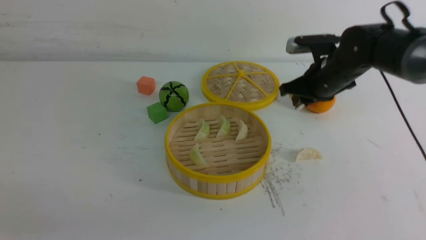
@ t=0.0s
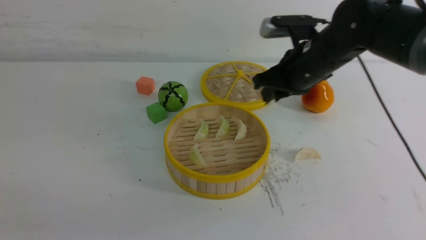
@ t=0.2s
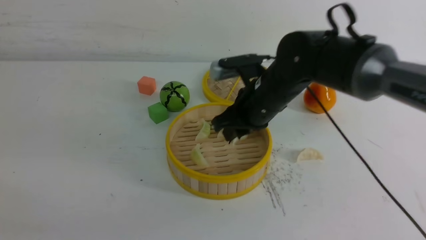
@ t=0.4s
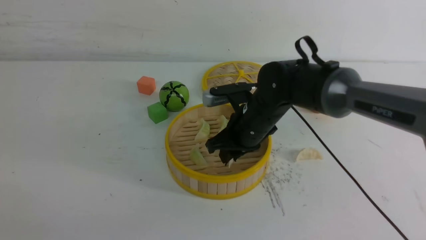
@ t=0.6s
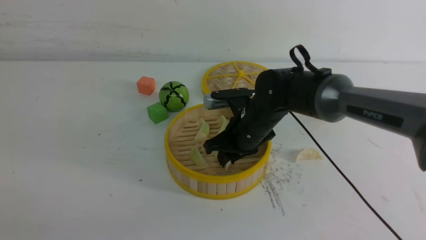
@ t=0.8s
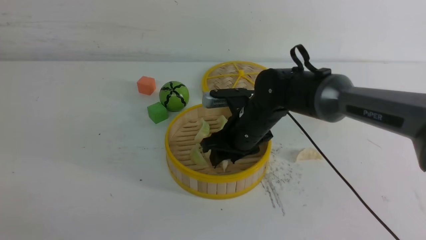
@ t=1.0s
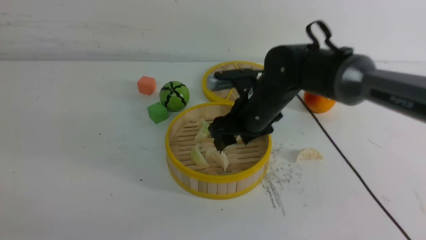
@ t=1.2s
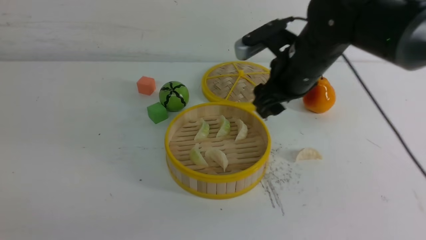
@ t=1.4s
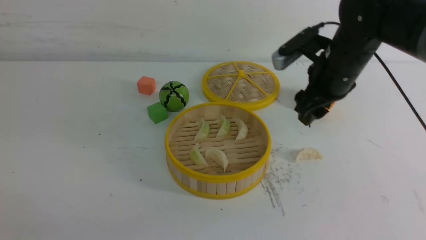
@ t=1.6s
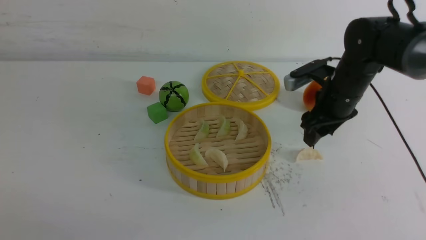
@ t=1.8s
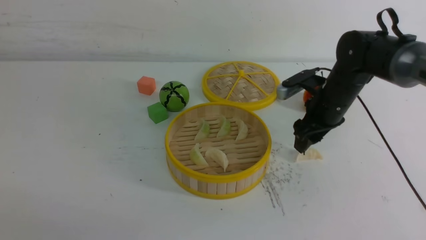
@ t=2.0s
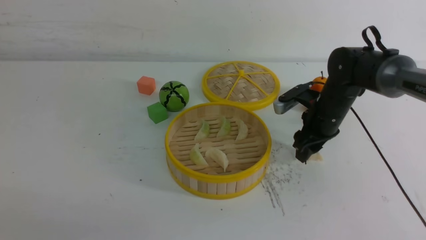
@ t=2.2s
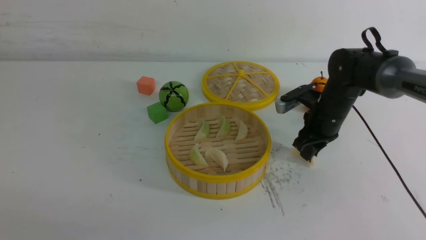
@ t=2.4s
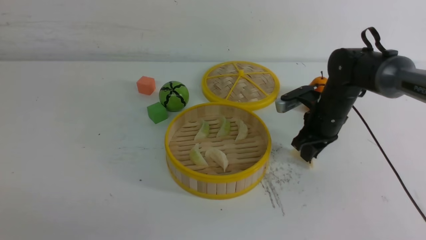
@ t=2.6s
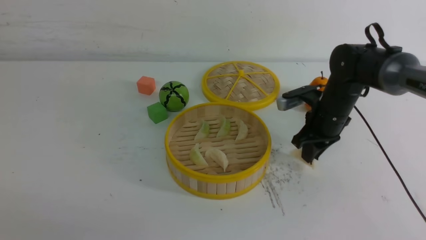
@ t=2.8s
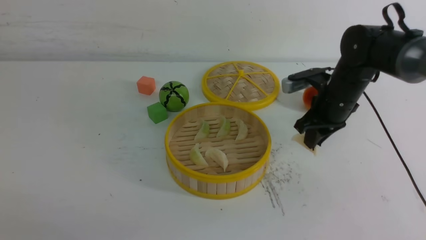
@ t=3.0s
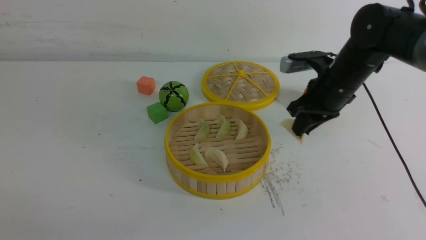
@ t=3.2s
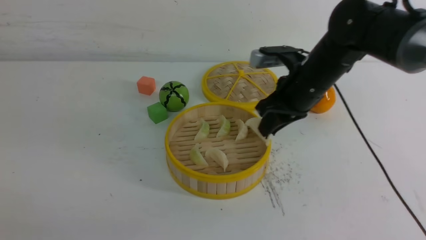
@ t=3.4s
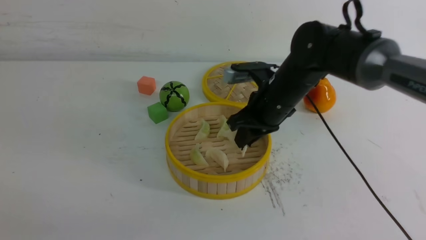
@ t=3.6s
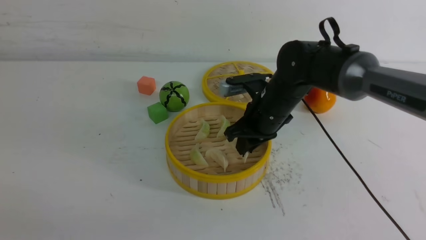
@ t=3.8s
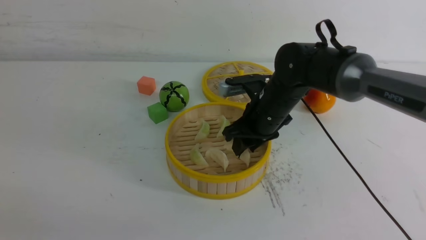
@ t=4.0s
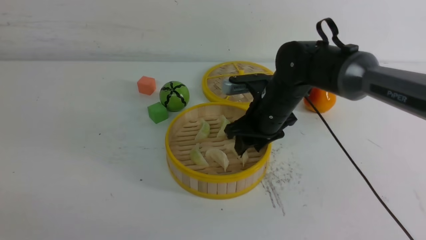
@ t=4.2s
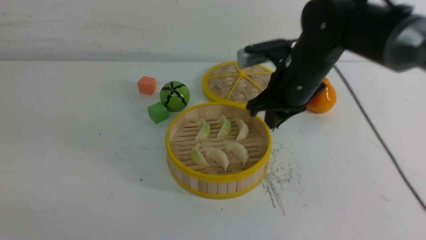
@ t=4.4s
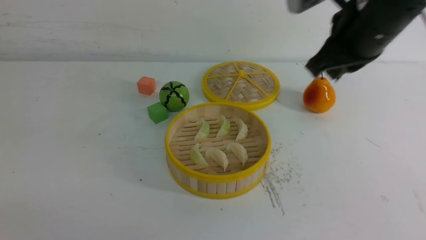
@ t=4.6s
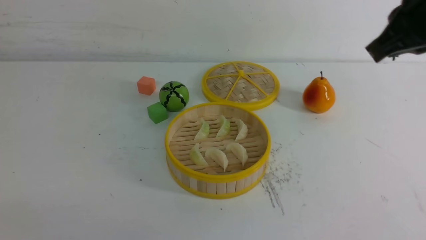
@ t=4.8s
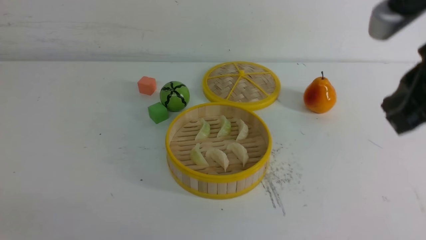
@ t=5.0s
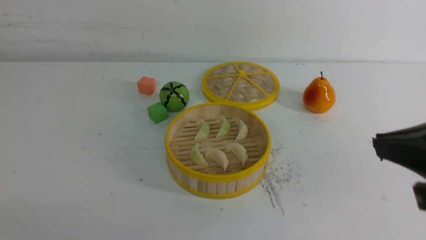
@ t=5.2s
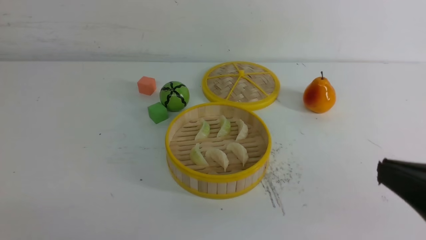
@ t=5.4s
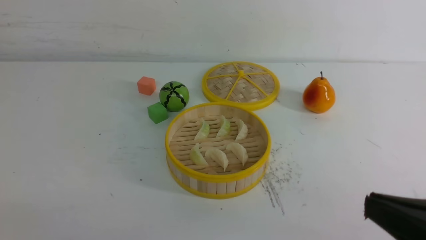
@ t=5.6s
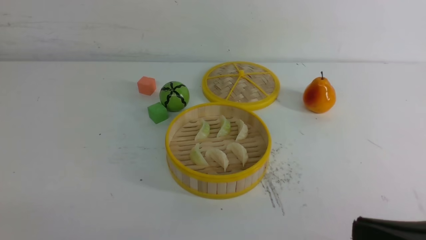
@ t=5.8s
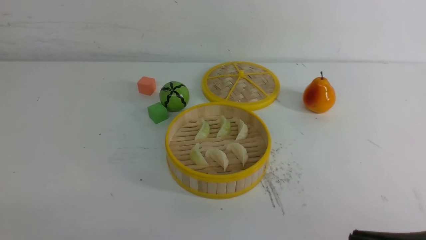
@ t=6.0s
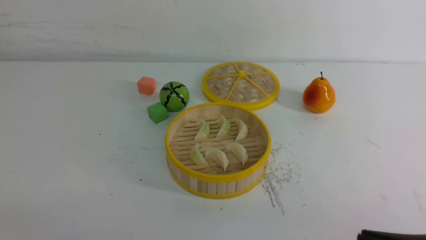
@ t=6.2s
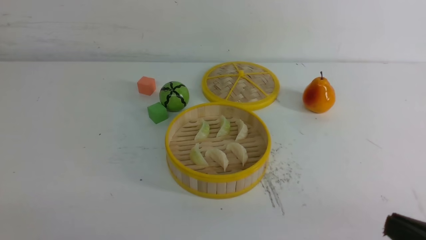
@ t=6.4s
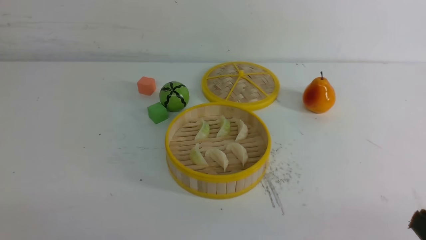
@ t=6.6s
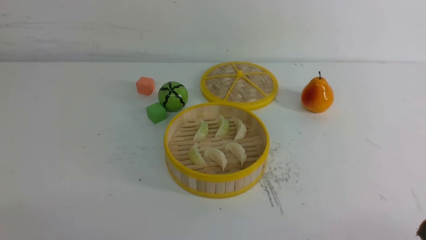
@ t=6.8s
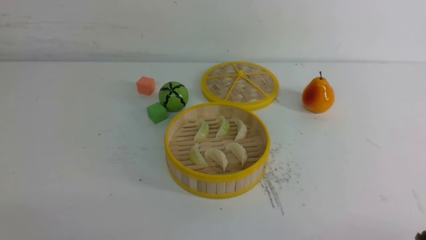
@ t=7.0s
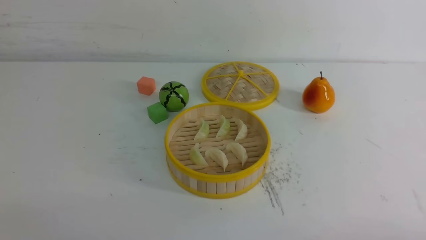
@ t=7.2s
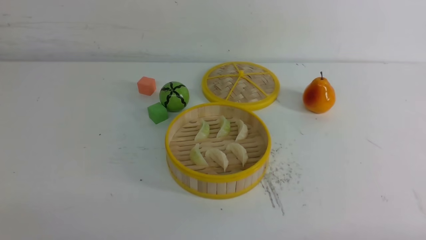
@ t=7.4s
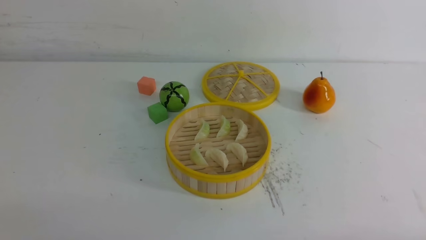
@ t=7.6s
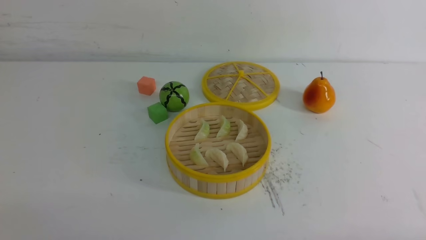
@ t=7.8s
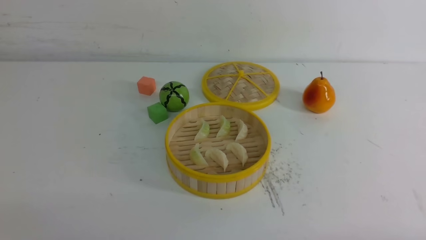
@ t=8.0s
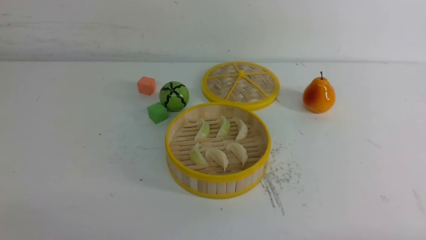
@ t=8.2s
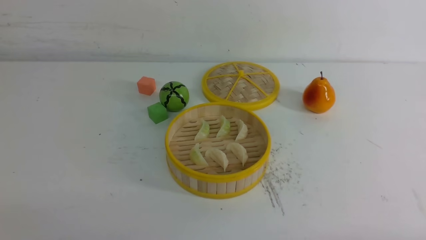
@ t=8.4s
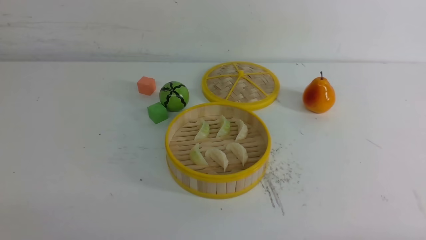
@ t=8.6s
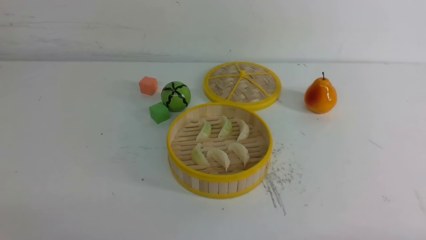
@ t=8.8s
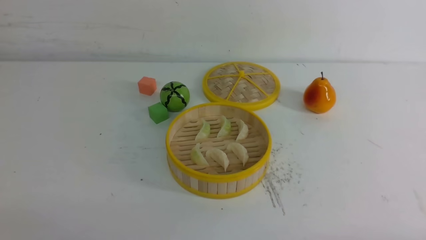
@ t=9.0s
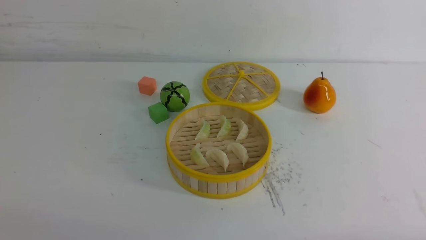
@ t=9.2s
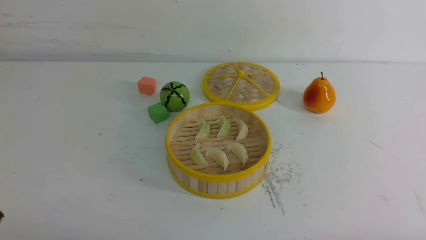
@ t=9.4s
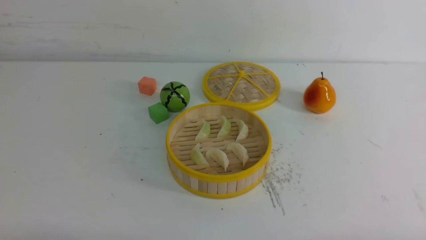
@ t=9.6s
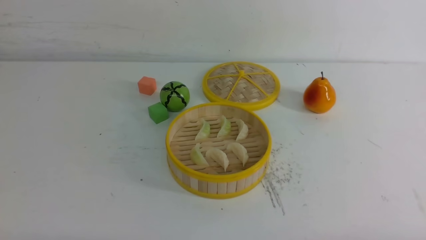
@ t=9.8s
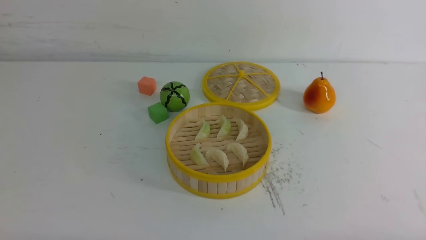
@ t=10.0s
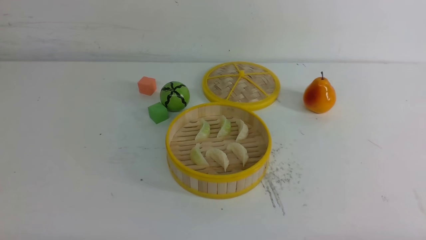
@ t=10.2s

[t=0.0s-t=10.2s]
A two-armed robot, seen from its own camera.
Task of the whole recording: put the dumplings into the steamer on the white table.
Step, t=0.0s to t=1.0s: use the right arm to put the dumpling into the steamer.
Step, t=1.2s to t=2.8s: use the right arm to grab a dumpling.
Step, t=3.0s to t=4.2s: use the right arm to put the dumpling into the steamer.
t=0.0s to t=1.4s: The right gripper opens.
t=1.4s to t=3.0s: The right gripper is displaced to the right and downward by approximately 10 cm, and closes its fingers.
t=3.0s to t=4.4s: The right gripper heads upward, to the left and backward, covering about 15 cm.
t=4.4s to t=5.8s: The right gripper goes roughly 30 cm backward.
t=5.8s to t=7.2s: The right gripper goes about 15 cm downward and to the right.

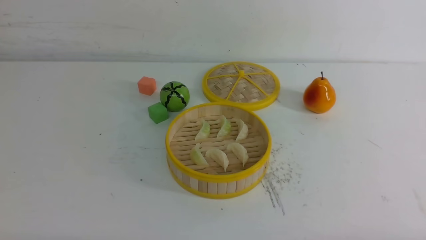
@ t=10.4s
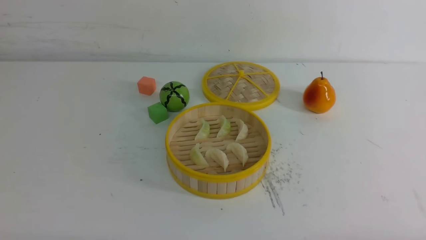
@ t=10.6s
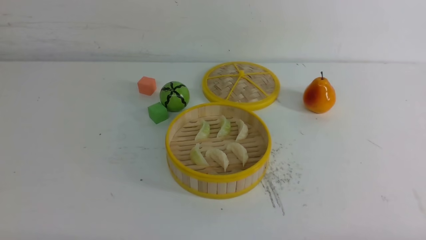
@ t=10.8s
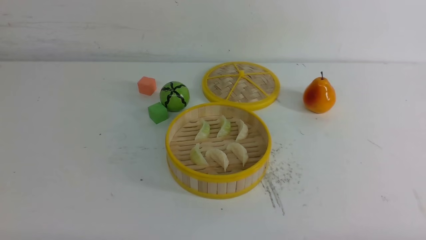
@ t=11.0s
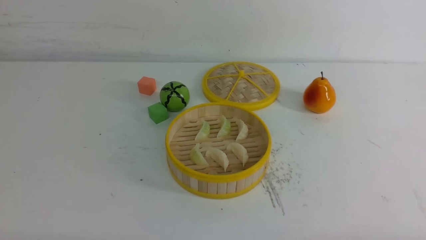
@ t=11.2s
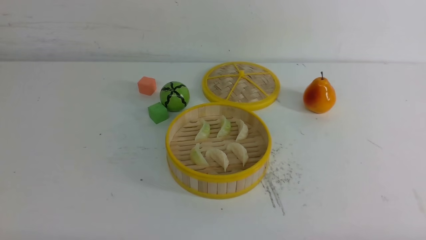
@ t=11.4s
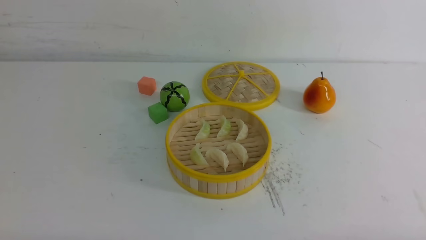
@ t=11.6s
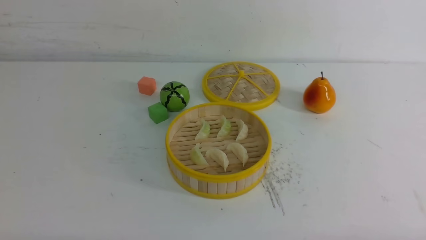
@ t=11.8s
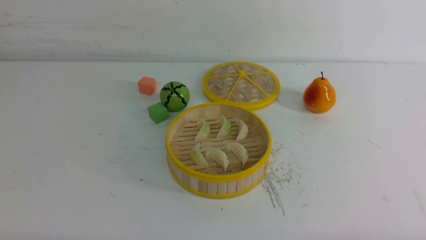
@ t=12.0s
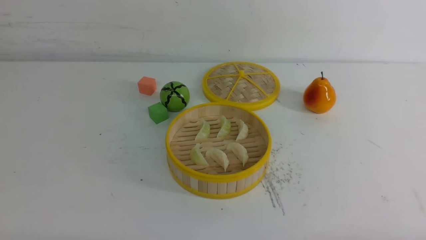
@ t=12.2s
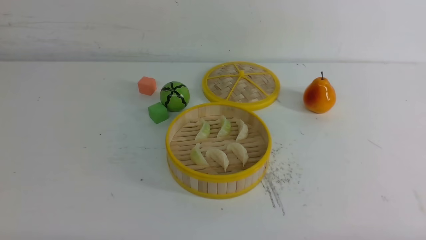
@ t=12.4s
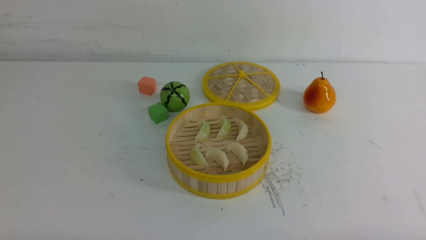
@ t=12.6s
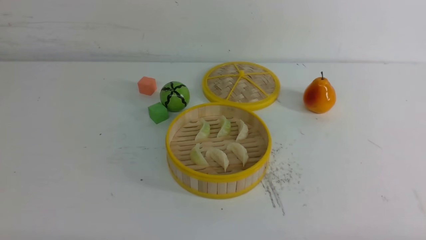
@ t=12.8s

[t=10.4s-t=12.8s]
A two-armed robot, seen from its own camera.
Task of the whole recording: put the dumplings into the steamer on the white table.
t=10.4s to t=12.8s: Both grippers stay about where they are.

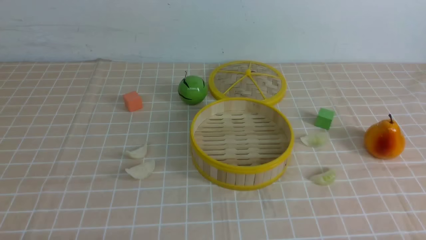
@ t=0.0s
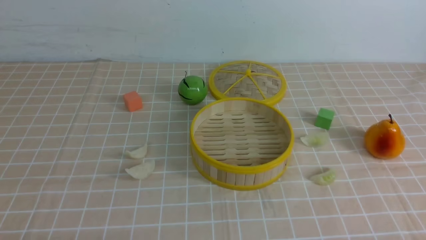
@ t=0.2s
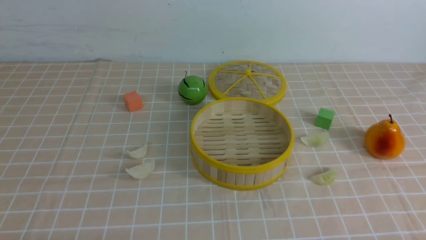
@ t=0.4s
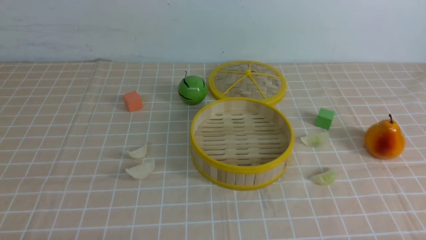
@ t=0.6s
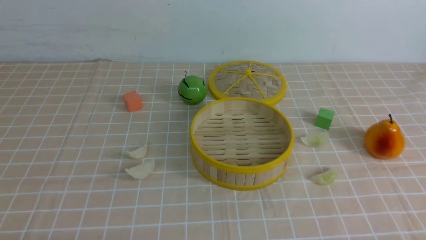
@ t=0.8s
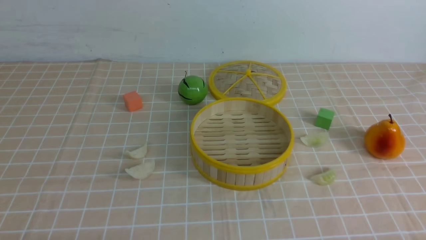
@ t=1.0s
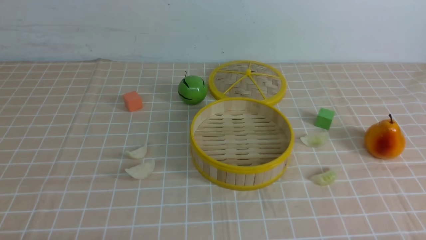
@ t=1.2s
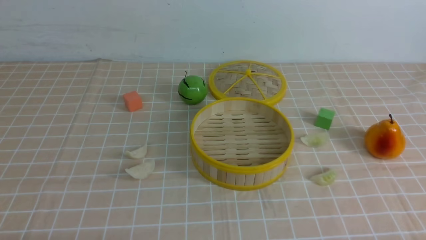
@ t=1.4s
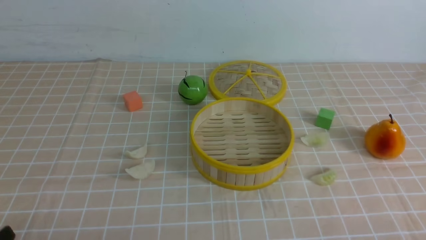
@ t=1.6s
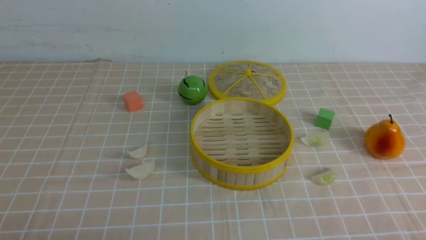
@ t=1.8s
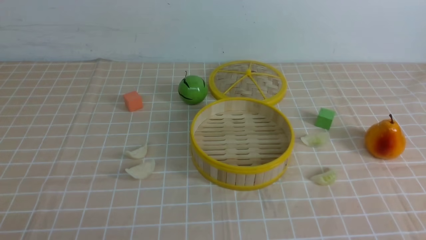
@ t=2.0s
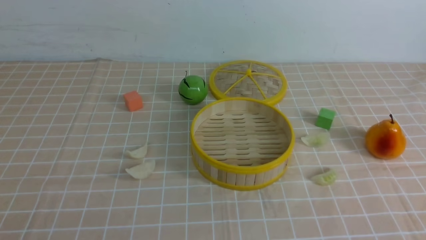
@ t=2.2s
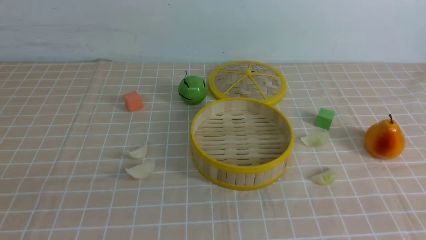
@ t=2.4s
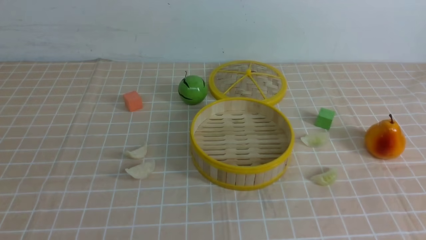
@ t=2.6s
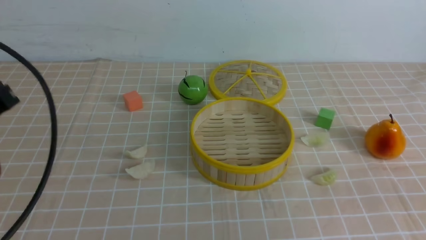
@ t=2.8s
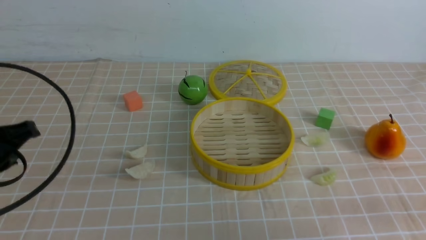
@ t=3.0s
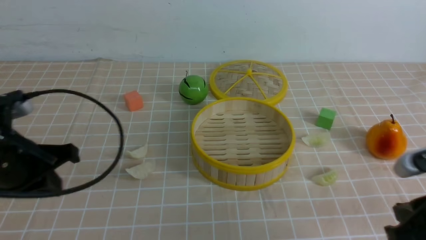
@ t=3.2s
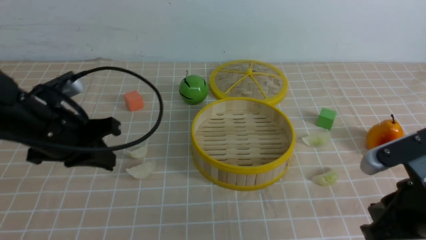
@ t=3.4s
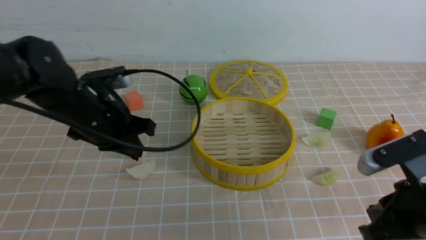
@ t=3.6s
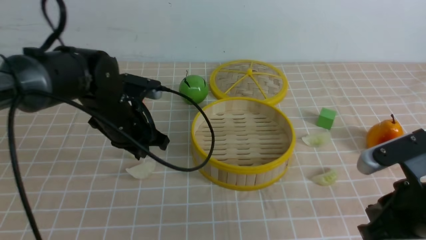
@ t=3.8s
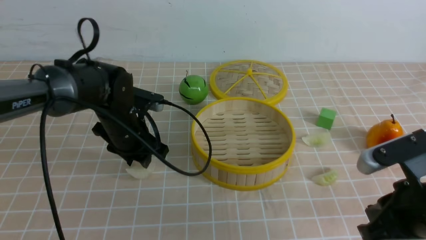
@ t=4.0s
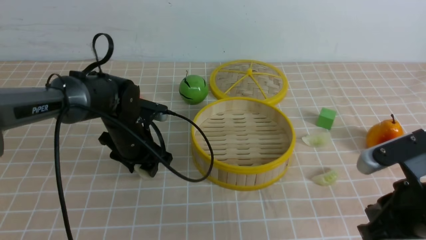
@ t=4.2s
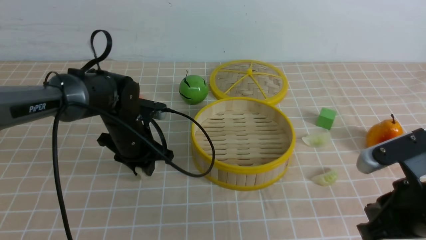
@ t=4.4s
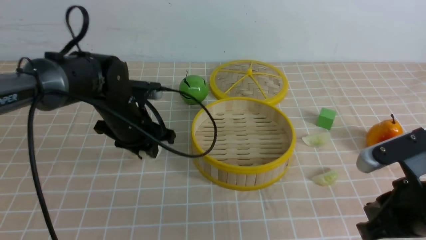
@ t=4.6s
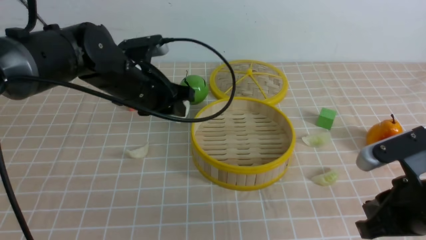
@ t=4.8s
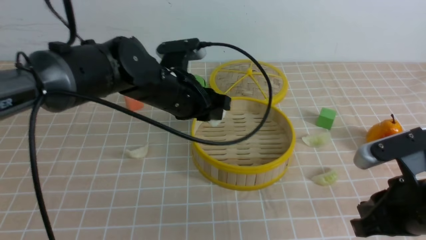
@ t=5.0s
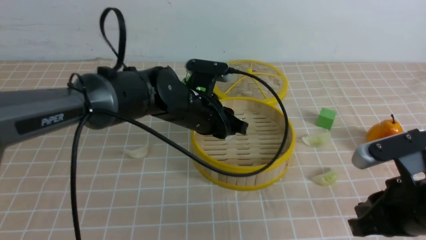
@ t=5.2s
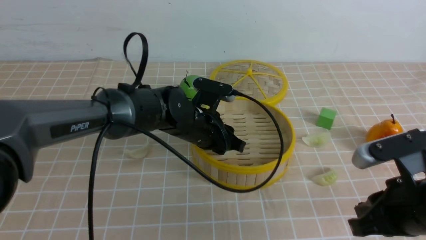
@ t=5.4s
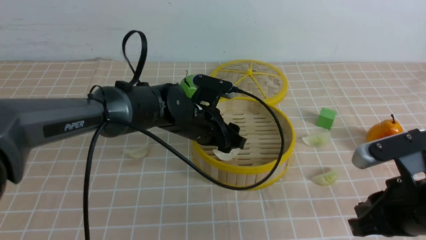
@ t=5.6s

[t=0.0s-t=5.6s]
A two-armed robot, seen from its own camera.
Task of the whole recording: put the dumplings into the steamer on the table with the brown tablecloth.
Step, t=0.0s to t=4.4s: use the left arm to grab a dumpling.
t=1.4s to t=2.8s: The left gripper goes some 20 cm upward and forward, and closes.
t=2.8s to t=4.2s: The right gripper shifts some 10 cm to the left and forward. The left gripper moves forward, downward and to the right, about 30 cm, and opens up.
t=4.2s to t=5.6s: The left gripper travels to the right and upward by roughly 10 cm.
